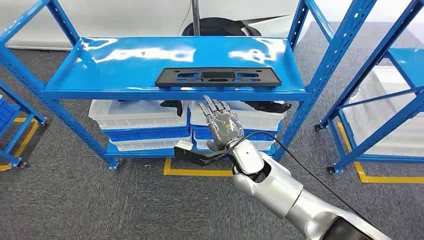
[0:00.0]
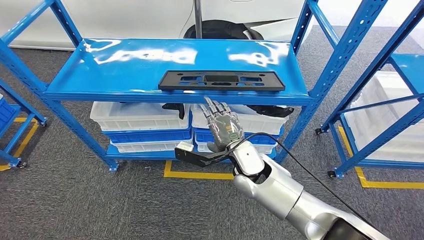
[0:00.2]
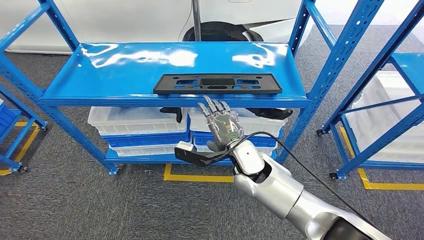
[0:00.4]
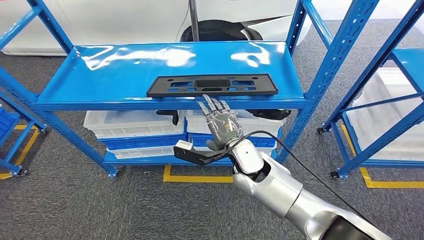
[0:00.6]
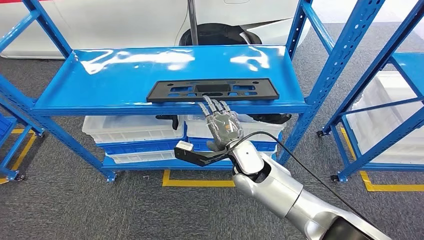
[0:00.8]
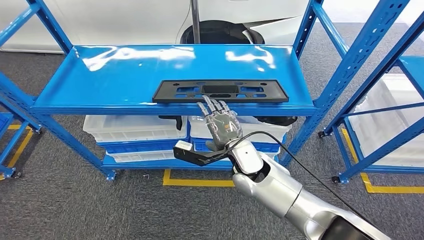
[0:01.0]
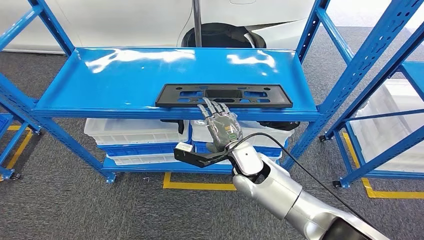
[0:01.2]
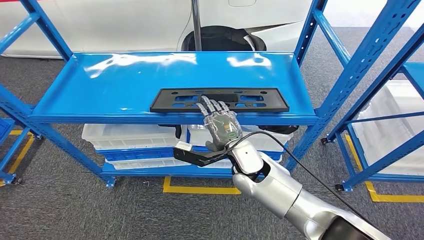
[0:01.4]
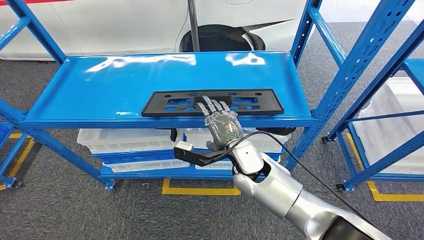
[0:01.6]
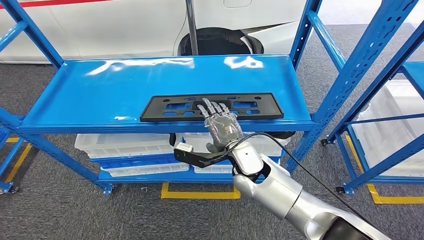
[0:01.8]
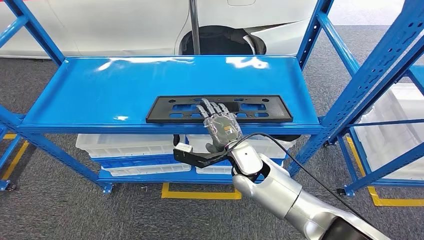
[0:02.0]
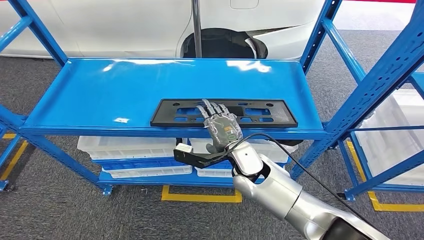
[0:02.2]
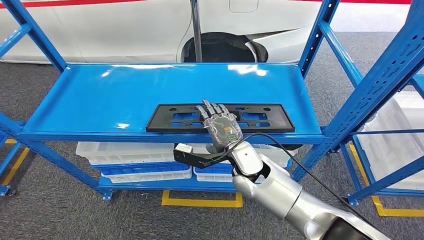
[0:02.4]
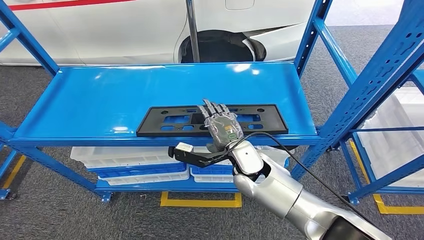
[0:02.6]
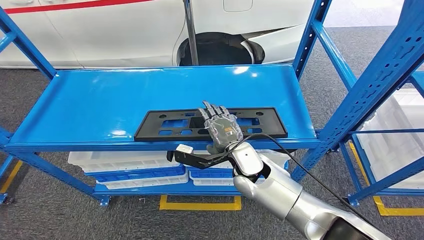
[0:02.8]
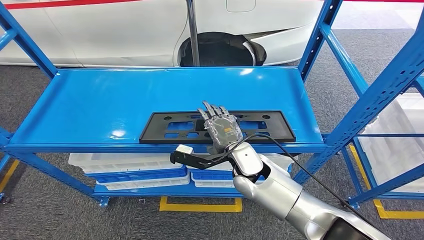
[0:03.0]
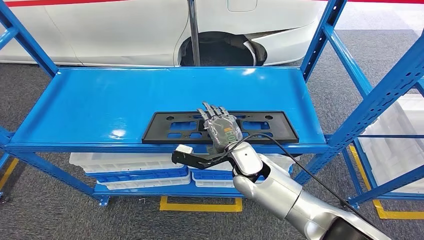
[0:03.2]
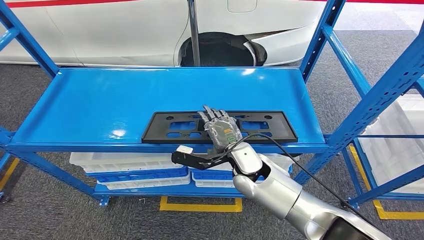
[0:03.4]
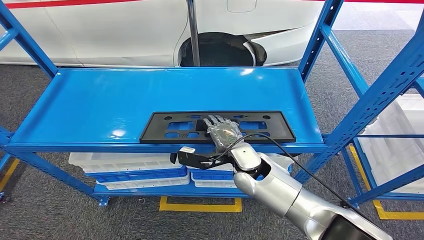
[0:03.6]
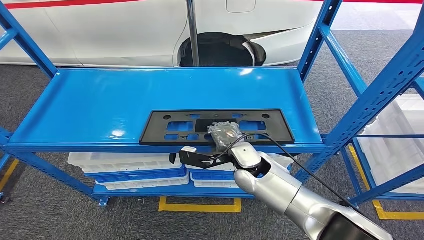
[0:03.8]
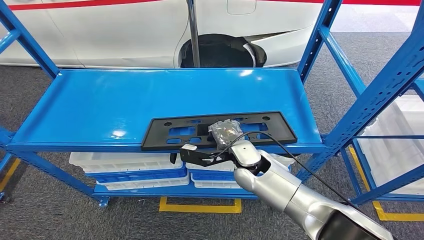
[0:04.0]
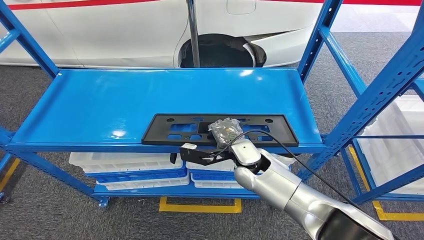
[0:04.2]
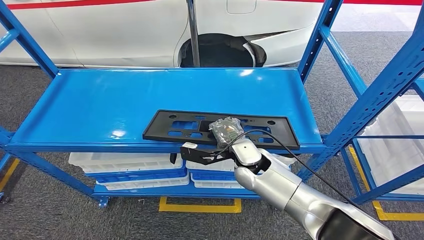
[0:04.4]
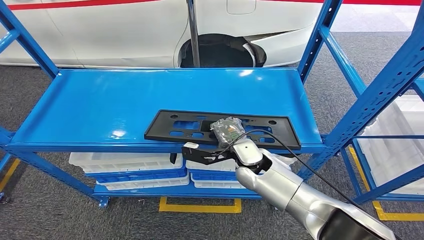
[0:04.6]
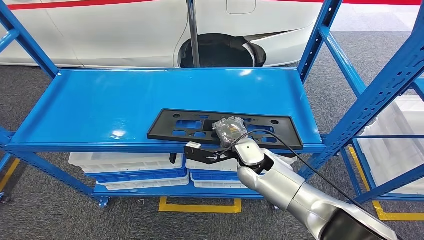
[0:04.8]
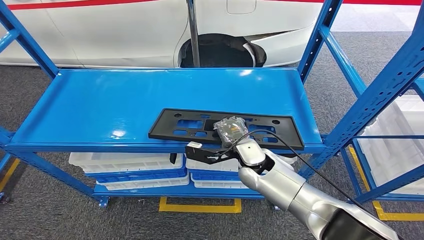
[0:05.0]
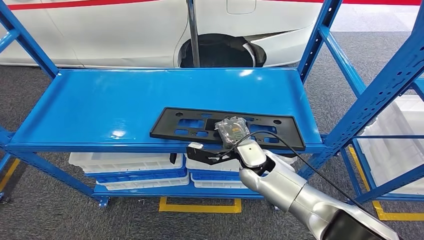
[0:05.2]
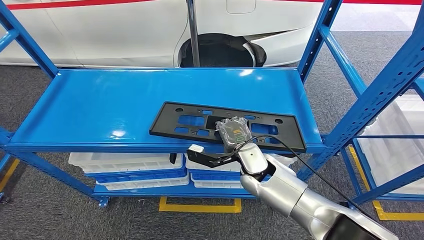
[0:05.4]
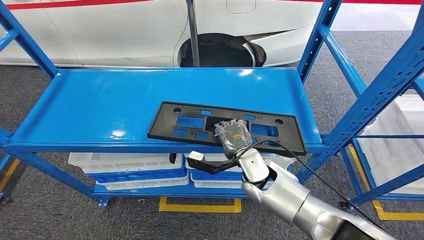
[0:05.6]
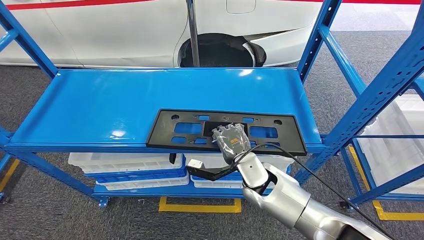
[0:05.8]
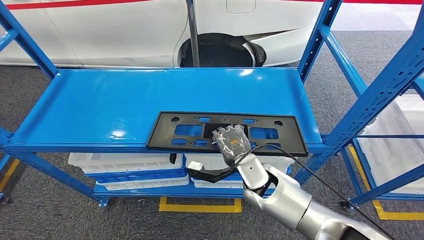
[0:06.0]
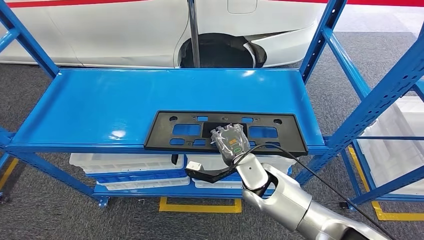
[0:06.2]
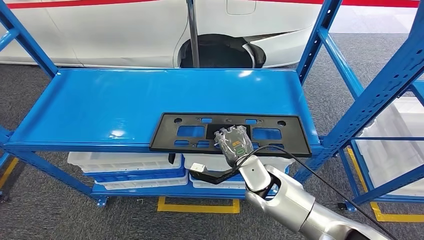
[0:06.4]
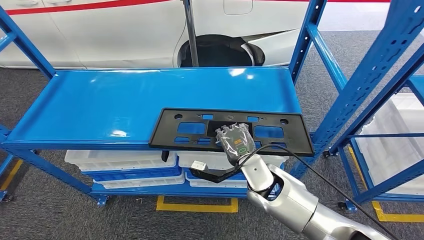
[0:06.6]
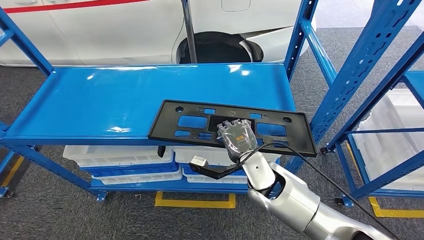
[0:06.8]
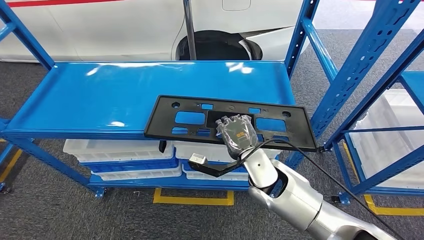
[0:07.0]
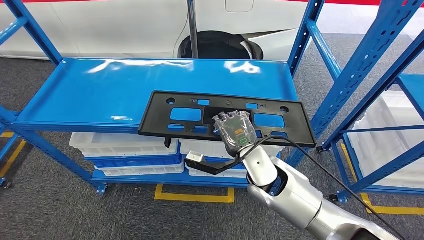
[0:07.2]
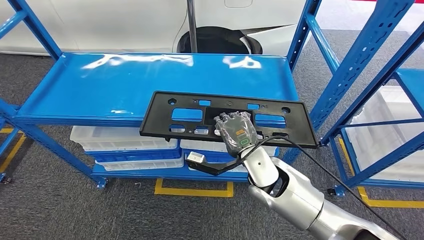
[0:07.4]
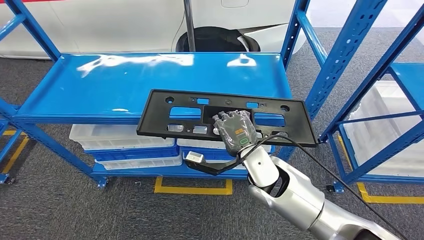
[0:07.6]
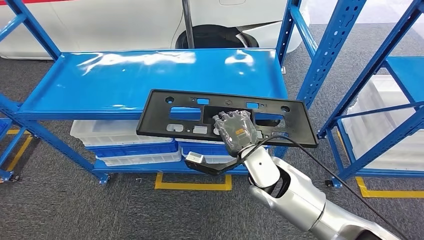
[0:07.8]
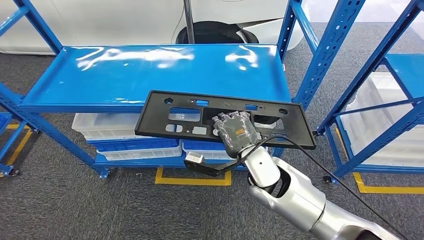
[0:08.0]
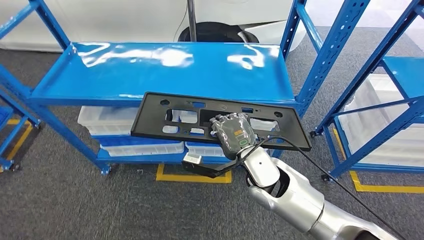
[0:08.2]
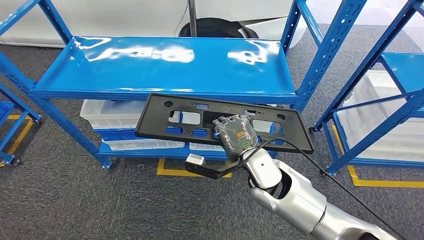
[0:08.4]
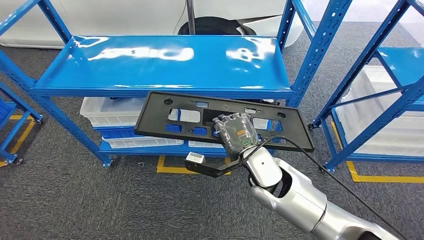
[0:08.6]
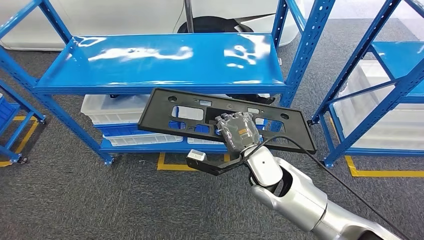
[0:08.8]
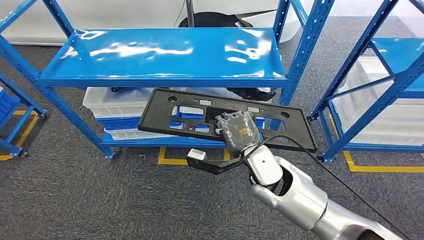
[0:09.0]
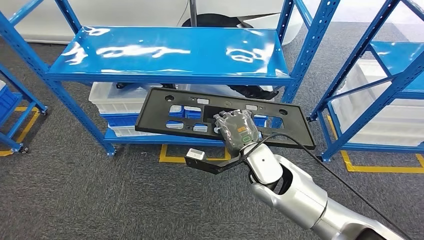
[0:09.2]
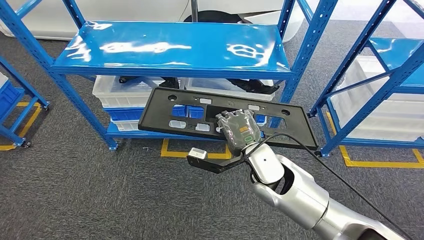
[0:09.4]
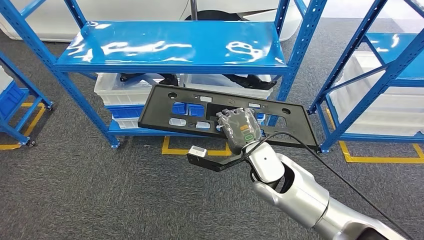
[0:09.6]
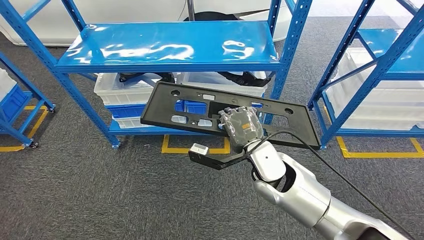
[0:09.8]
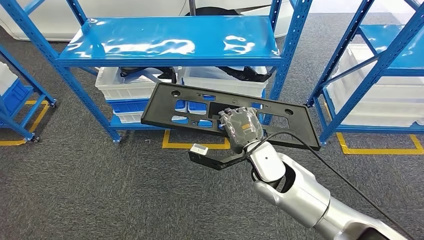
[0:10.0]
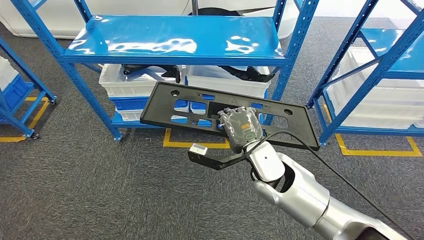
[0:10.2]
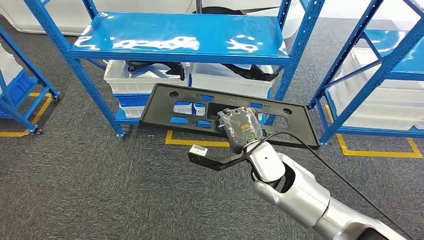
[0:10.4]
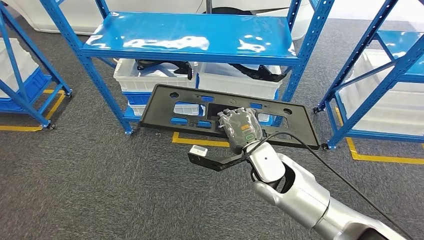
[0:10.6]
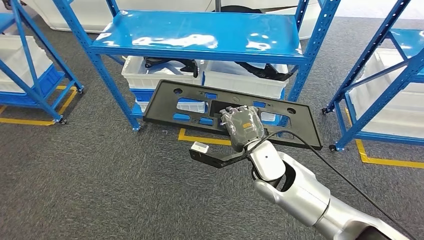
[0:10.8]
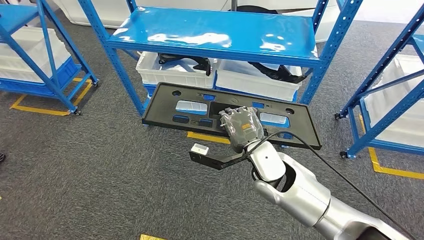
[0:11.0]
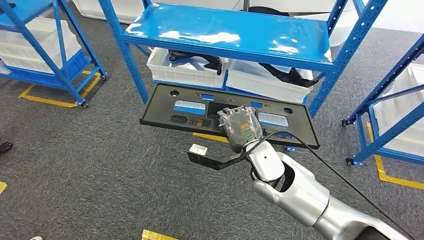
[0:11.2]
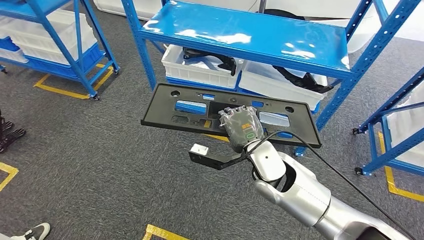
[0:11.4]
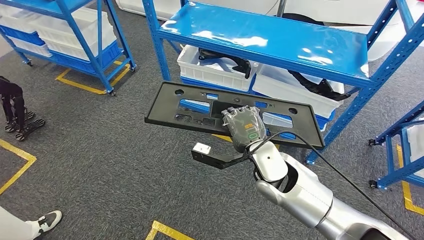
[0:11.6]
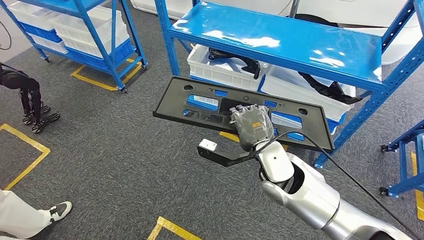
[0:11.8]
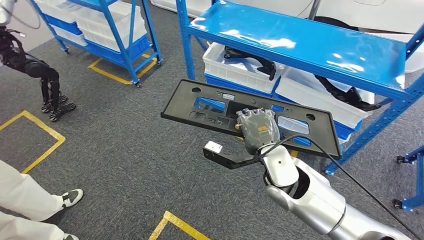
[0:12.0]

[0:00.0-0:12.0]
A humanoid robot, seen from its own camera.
Step, 0:00.0 to 0:06.0: Pick up the large material from the shelf.
0:03.0 to 0:06.0: There are only small adjustments of the hands.

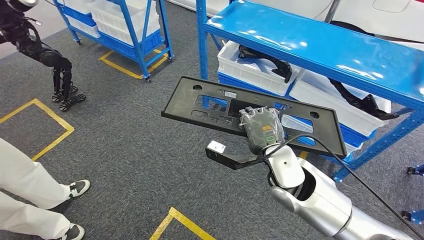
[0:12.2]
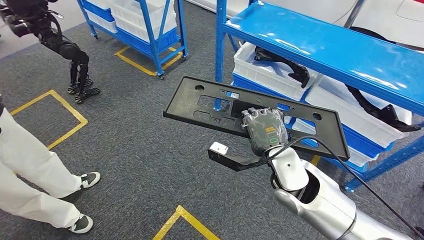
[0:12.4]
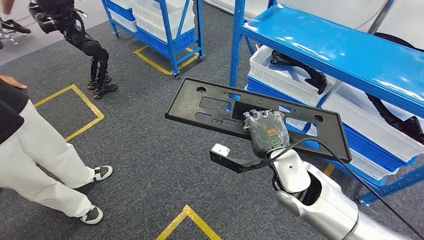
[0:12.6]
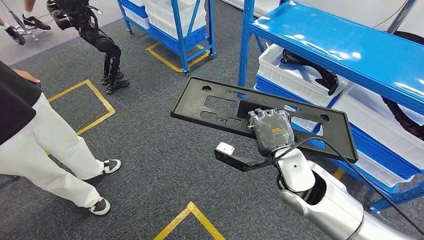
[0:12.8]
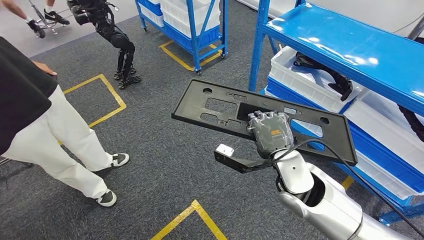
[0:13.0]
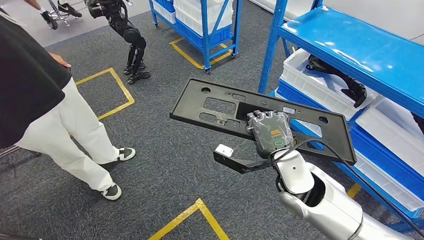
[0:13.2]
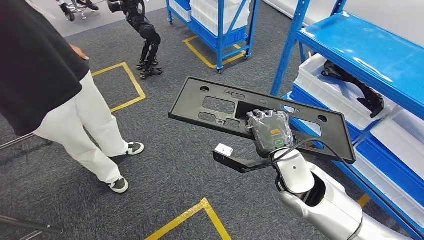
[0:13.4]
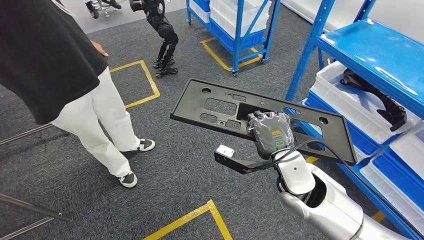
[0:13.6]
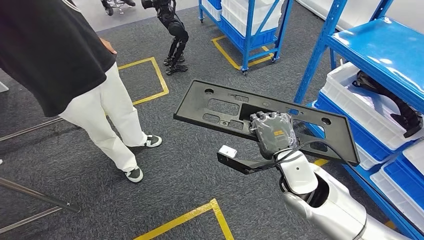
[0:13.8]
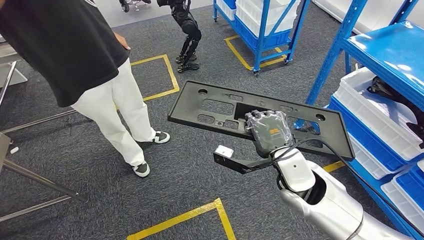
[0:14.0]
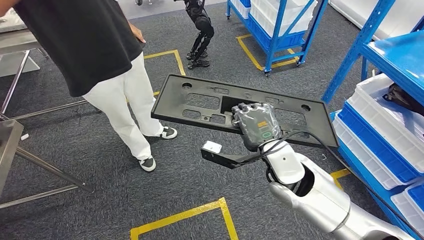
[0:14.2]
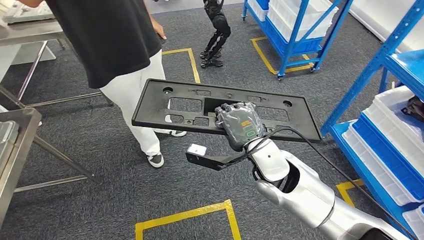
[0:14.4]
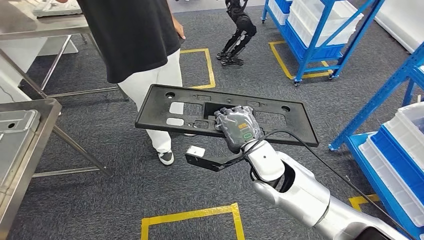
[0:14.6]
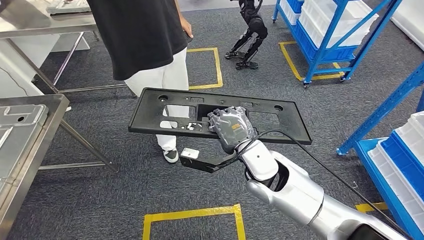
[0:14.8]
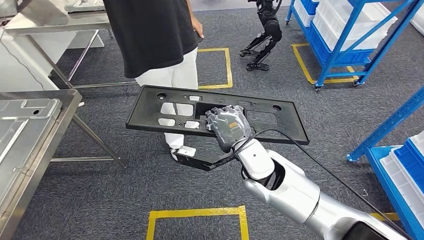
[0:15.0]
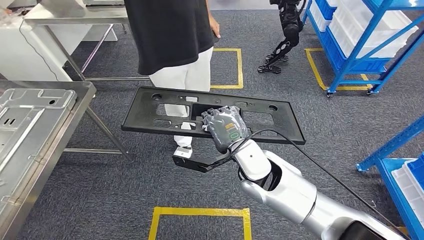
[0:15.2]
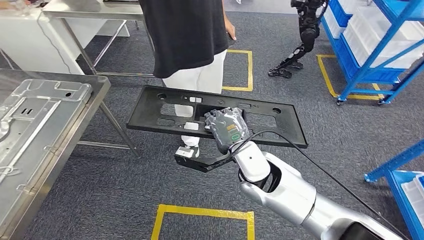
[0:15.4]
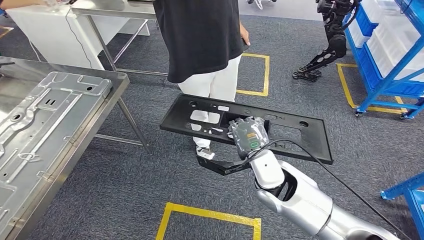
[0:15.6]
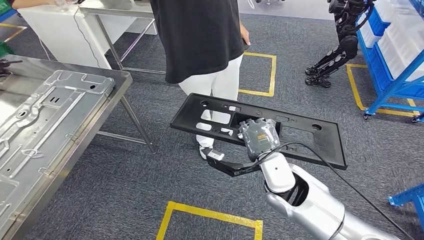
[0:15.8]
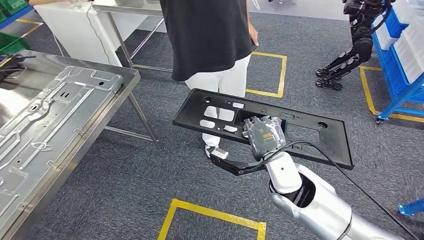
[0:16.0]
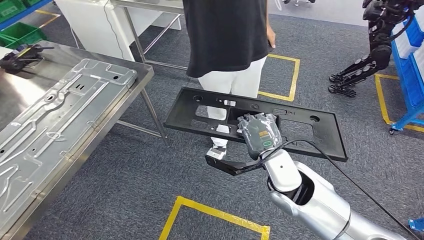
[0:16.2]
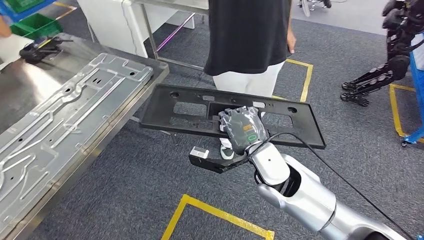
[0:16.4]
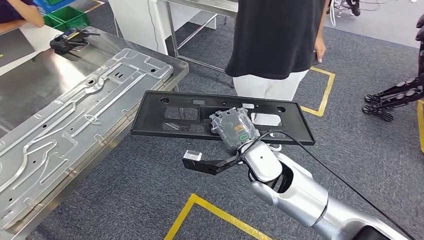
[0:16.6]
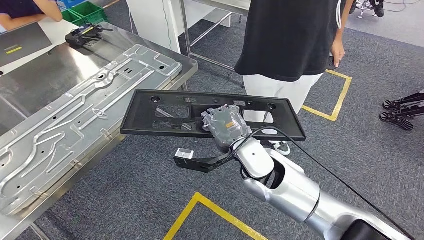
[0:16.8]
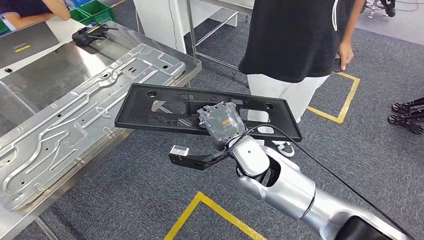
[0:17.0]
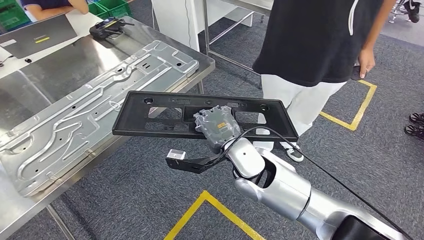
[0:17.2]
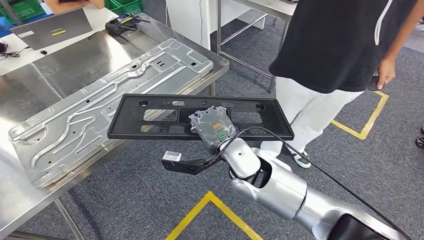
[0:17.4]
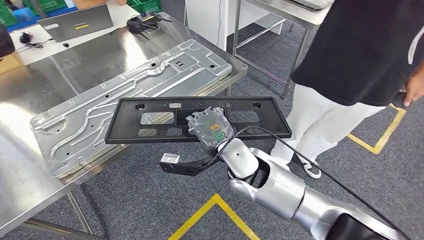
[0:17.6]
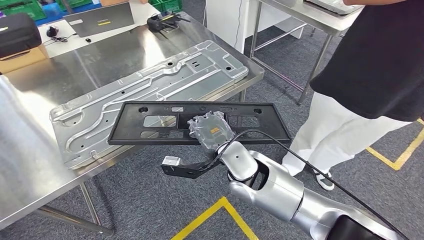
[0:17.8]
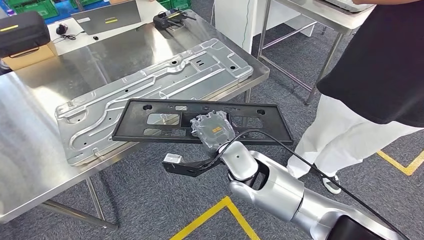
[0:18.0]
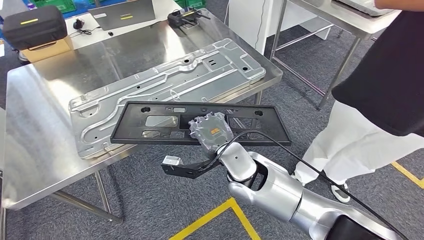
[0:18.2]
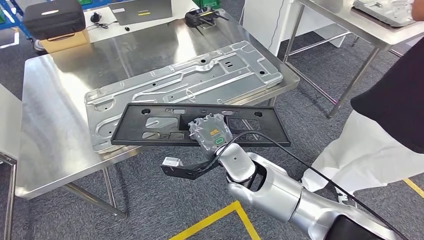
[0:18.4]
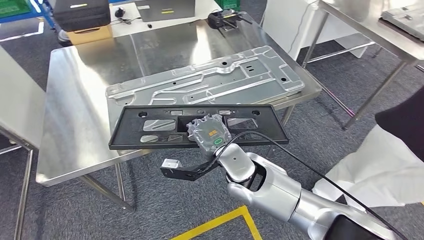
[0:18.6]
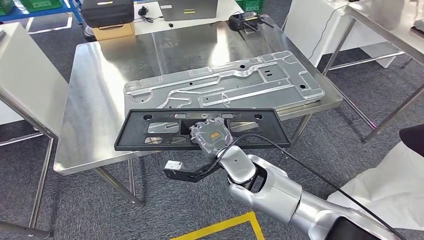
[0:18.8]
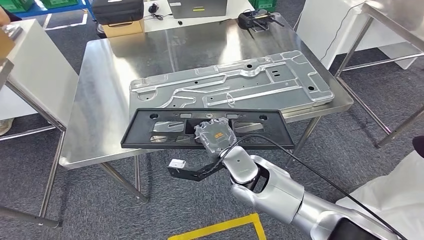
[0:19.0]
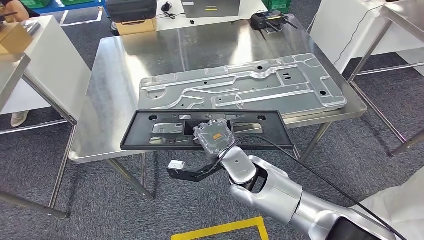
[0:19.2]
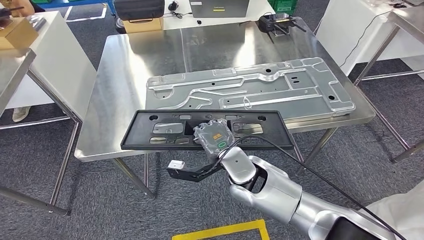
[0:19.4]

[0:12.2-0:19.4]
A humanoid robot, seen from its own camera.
Step, 0:12.2 to 0:19.0: Move the large material to the workbench.
